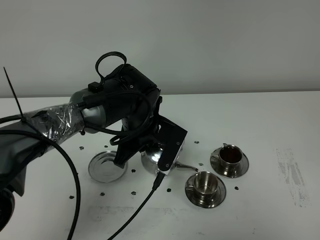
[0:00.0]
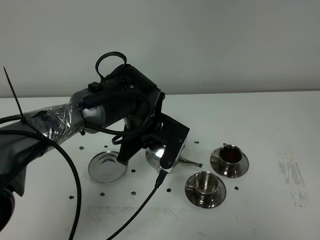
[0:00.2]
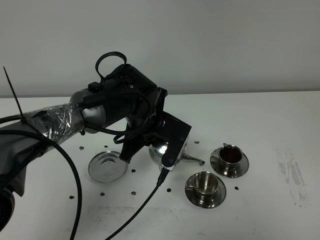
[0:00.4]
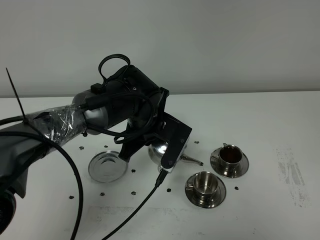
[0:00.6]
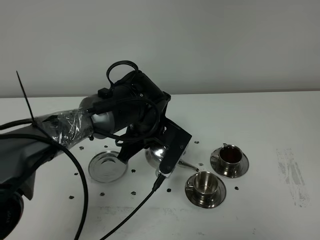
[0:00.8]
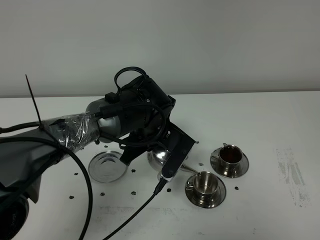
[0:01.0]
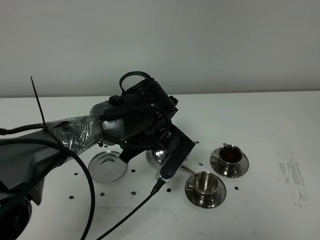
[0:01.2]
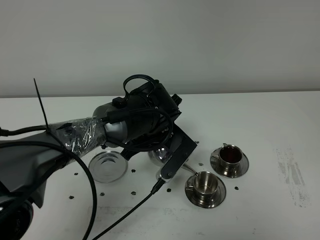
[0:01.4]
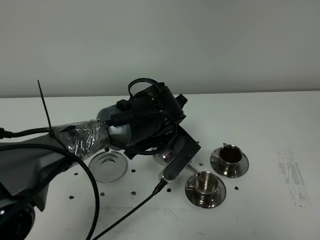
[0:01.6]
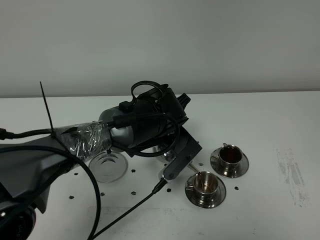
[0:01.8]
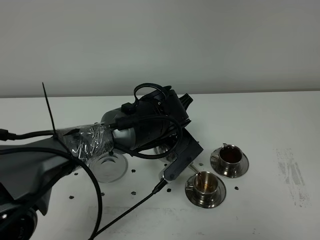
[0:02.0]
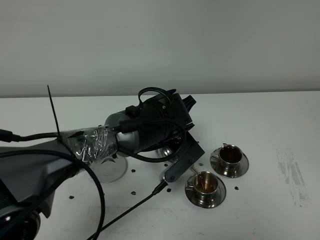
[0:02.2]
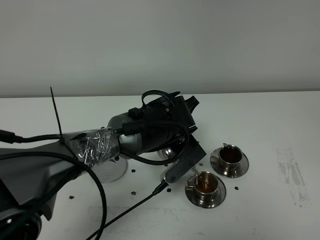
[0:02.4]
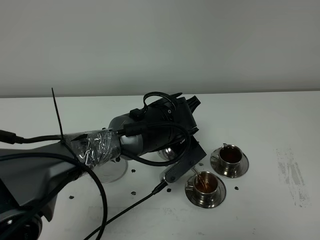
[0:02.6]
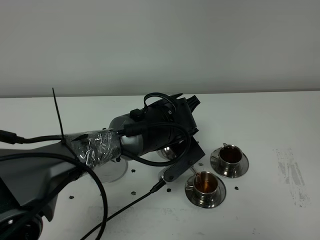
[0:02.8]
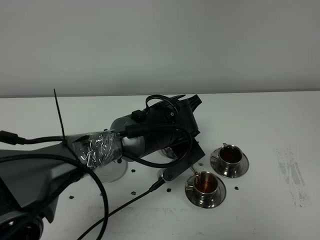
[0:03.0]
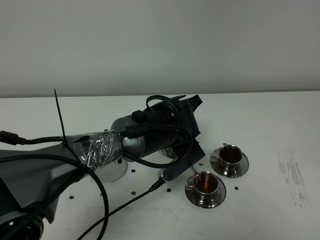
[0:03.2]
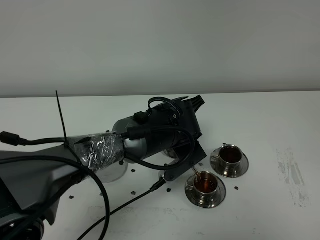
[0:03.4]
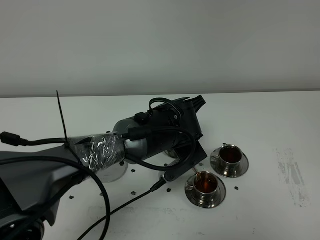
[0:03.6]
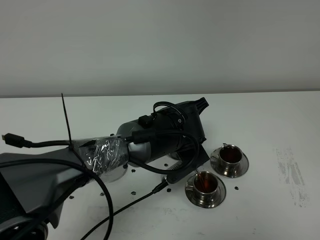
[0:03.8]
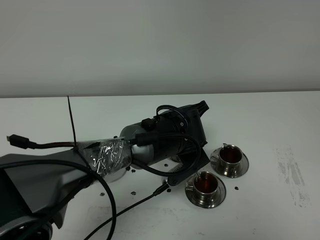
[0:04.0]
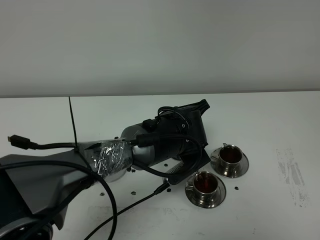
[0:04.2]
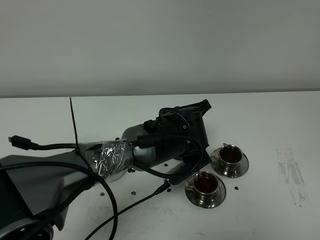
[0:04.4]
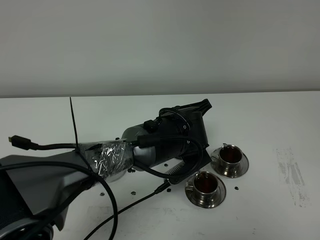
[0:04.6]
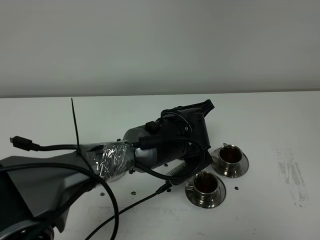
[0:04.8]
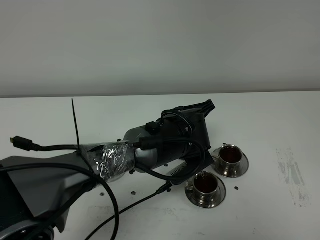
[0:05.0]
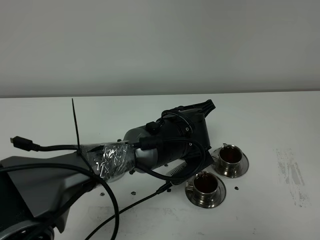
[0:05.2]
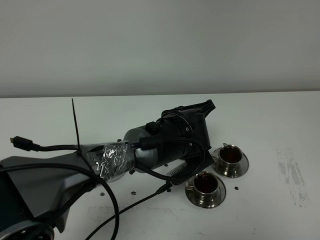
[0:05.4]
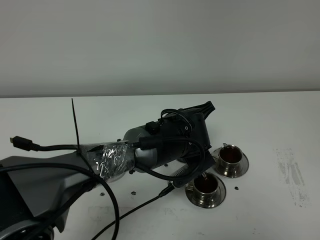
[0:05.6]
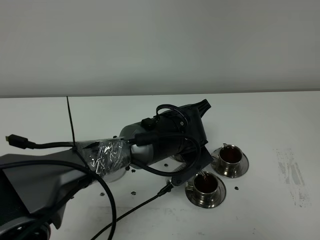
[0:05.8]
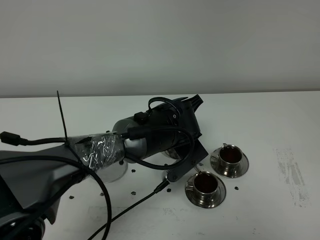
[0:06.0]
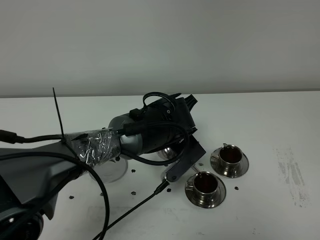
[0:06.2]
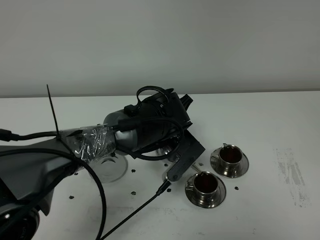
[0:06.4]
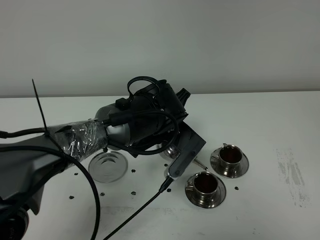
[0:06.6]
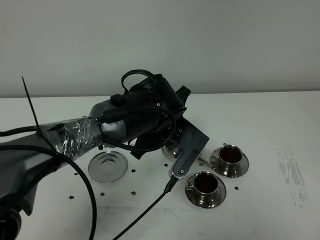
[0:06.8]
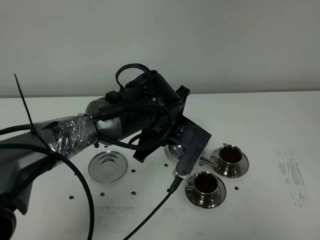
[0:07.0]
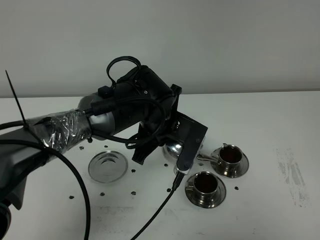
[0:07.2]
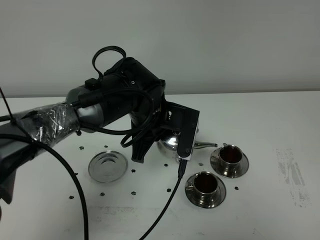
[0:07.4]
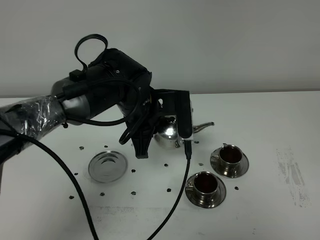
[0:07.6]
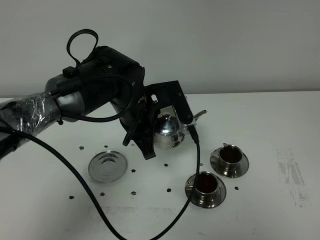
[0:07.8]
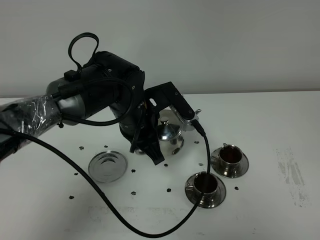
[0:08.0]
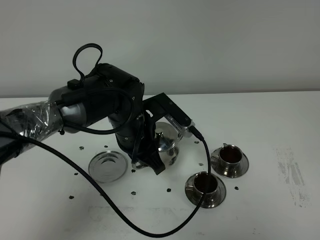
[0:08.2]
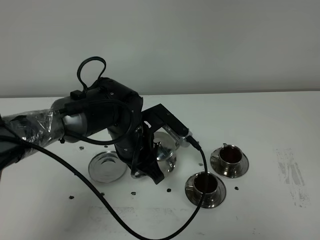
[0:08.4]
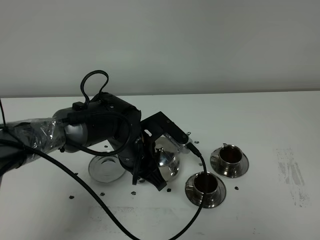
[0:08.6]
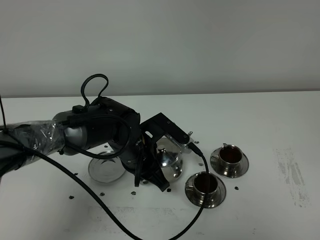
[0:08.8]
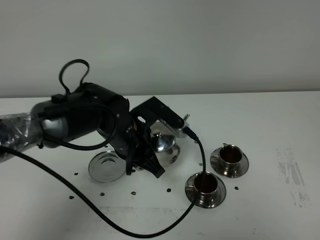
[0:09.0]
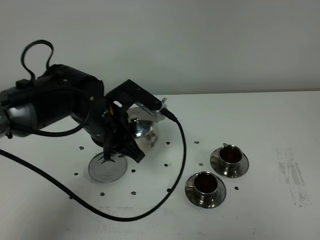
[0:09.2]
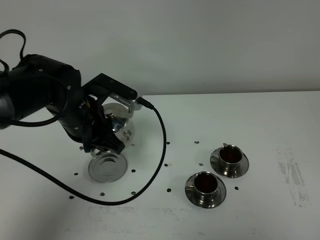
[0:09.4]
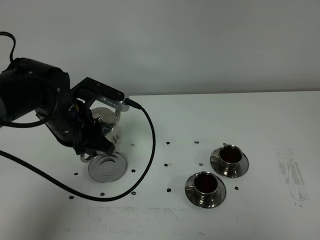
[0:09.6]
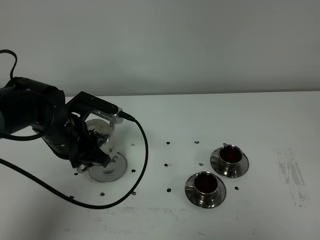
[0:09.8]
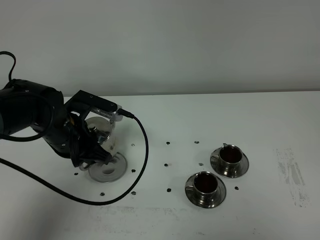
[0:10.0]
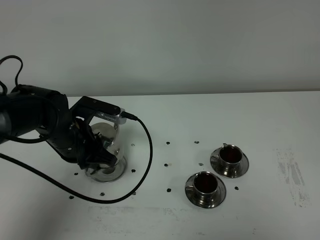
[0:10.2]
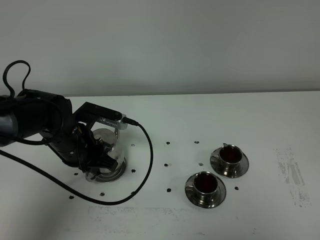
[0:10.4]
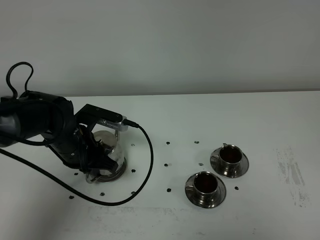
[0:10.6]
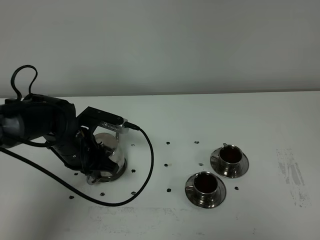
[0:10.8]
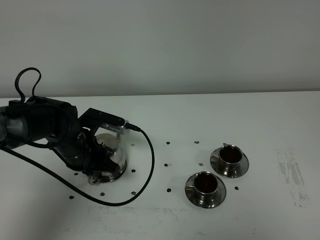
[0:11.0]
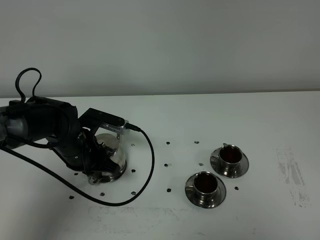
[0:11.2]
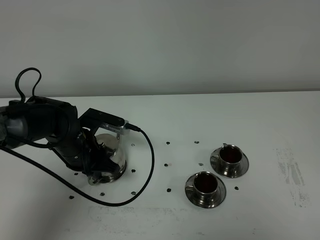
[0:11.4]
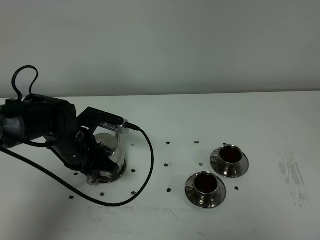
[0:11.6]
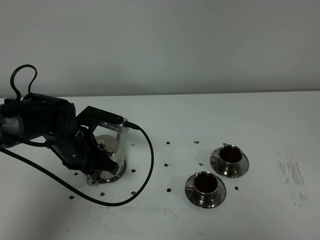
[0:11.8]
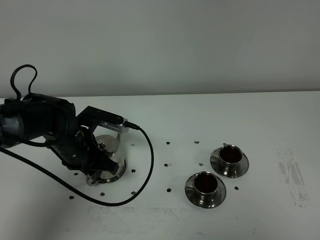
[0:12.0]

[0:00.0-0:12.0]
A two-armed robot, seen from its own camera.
Task of the whole recording: grasp the stainless steel teapot and pour the tea into the two stainless steel teacups one by one, put the stainless steel teapot back in its original place.
Step, 0:00.0 to 0:06.4: Pour tea into the teacup with the left gripper.
0:01.6 to 0:04.4: The grippers make only small movements.
0:04.4 to 0:06.0: The grippers make only small movements.
0:06.0 to 0:07.6: The left gripper heads to the left, covering about 5 cm.
0:09.0 to 0:10.4: The left gripper goes approximately 10 cm to the left.
0:10.4 to 0:12.0: The left gripper opens up.

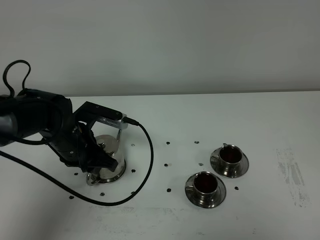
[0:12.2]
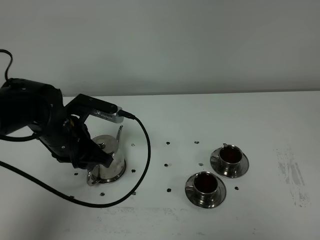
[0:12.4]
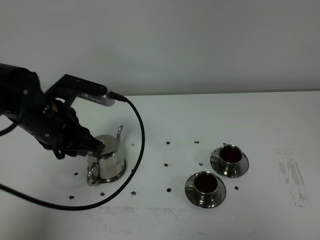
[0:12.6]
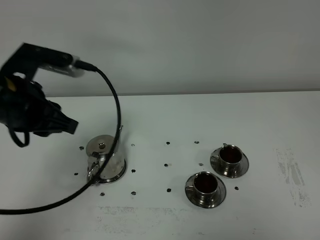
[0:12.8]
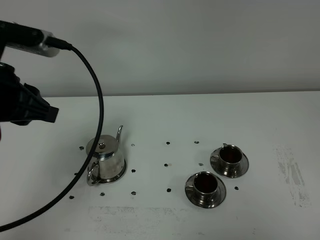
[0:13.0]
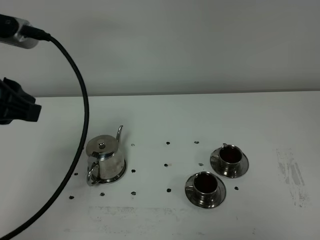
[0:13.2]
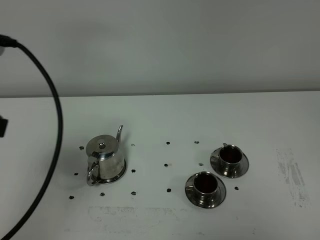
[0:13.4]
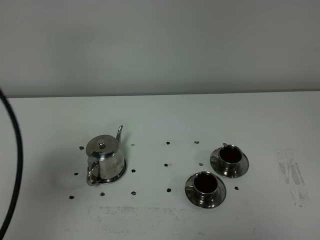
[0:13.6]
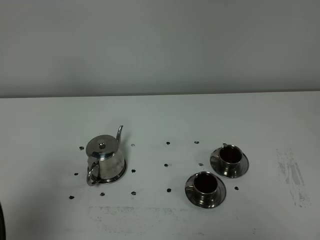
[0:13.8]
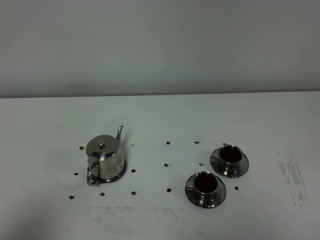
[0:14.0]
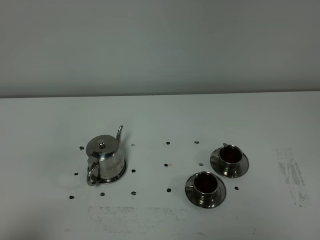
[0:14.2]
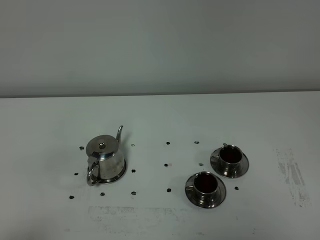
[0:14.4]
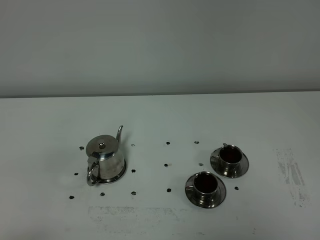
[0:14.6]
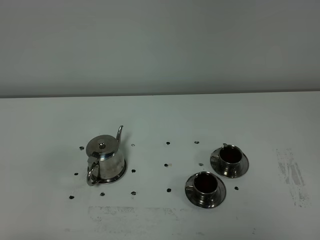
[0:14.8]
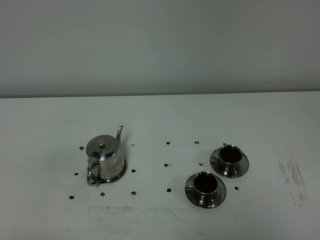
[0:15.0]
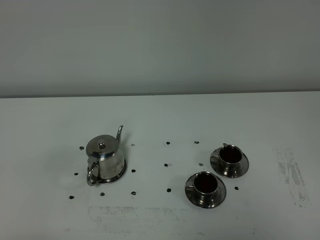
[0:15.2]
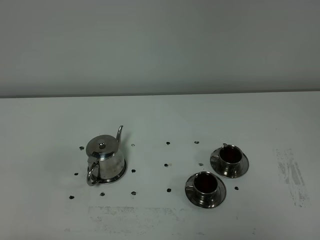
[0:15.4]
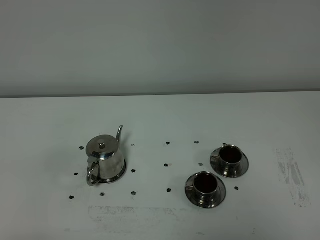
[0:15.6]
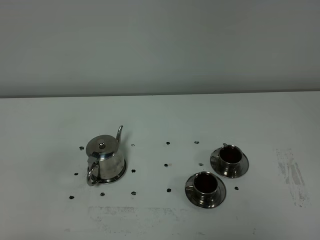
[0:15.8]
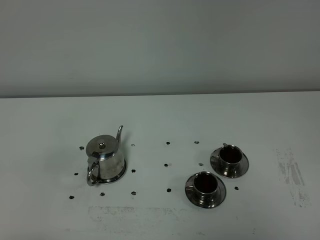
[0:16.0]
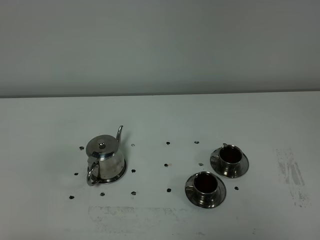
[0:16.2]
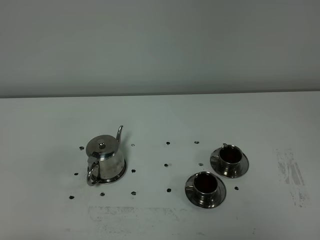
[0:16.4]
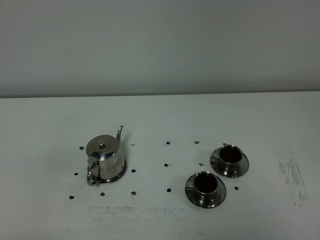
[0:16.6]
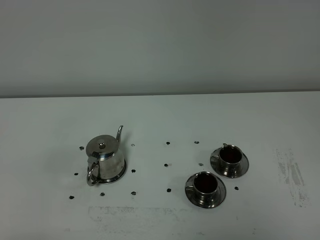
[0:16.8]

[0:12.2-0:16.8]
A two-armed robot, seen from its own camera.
Task of the whole recording: grasp the stainless steel teapot and pour the tea into the two stainless steel teacups one by one, put the stainless steel teapot back in its original place.
0:12.2 to 0:13.8: The left gripper moves backward, upward and to the left, roughly 35 cm.
0:13.8 to 0:15.2: The left gripper travels backward and downward by roughly 15 cm.
0:15.2 to 0:16.8: The two grippers keep their place.

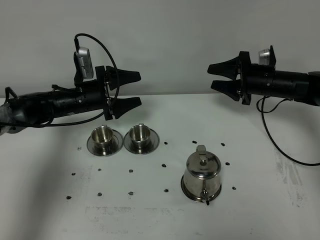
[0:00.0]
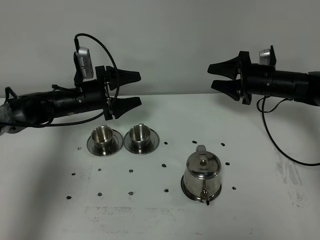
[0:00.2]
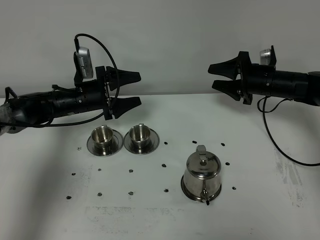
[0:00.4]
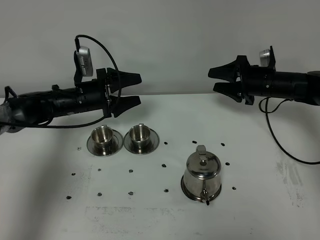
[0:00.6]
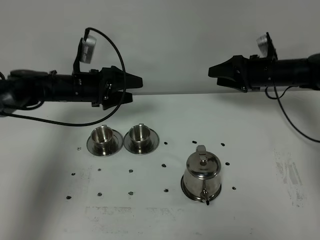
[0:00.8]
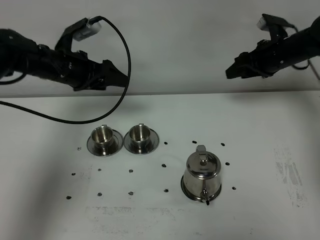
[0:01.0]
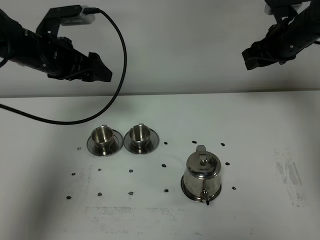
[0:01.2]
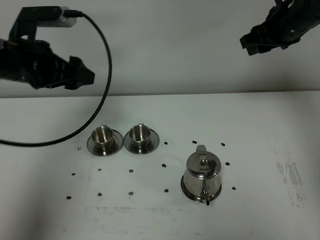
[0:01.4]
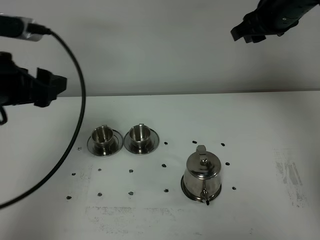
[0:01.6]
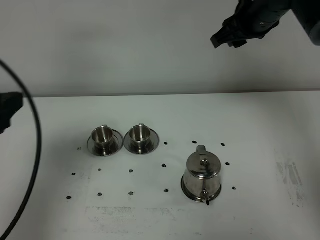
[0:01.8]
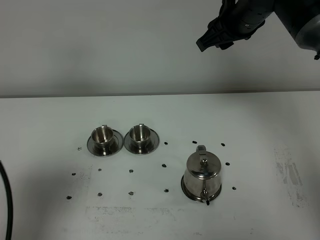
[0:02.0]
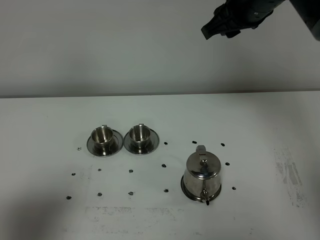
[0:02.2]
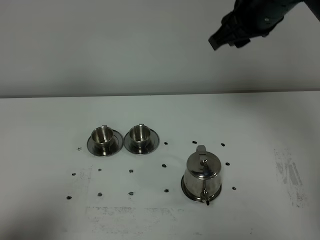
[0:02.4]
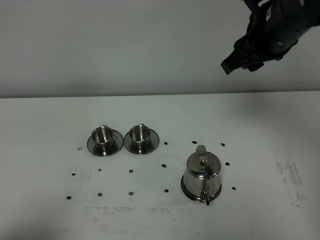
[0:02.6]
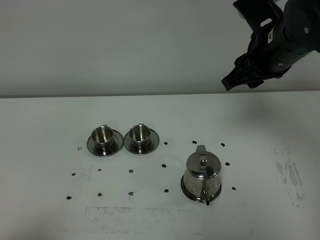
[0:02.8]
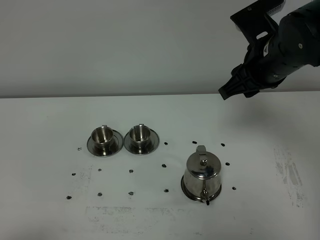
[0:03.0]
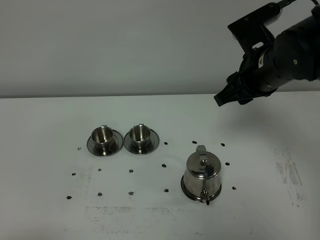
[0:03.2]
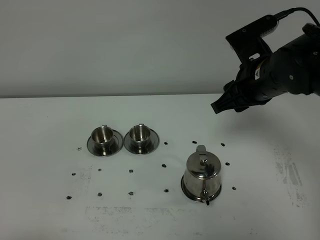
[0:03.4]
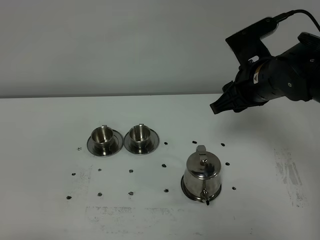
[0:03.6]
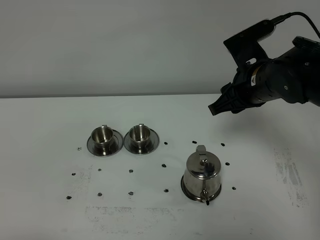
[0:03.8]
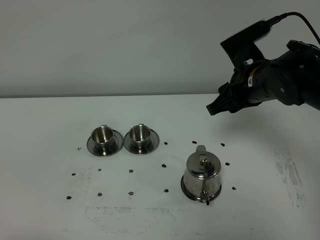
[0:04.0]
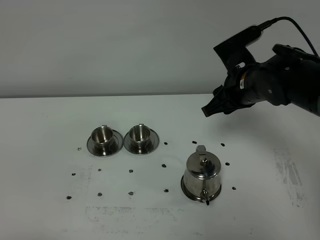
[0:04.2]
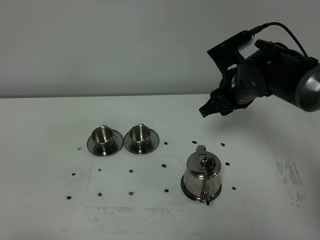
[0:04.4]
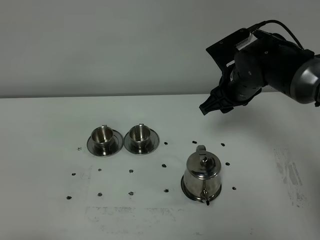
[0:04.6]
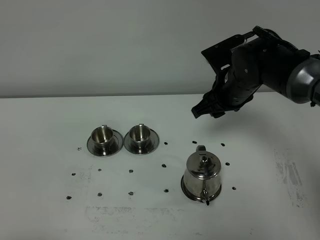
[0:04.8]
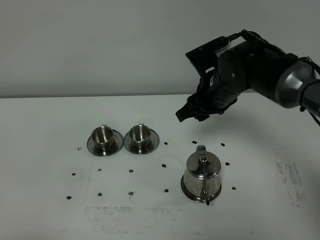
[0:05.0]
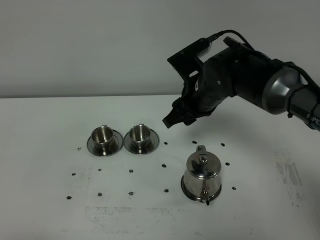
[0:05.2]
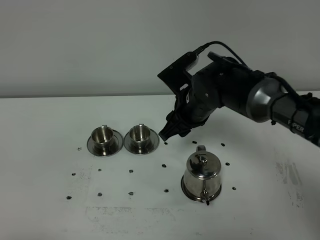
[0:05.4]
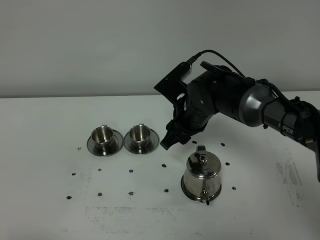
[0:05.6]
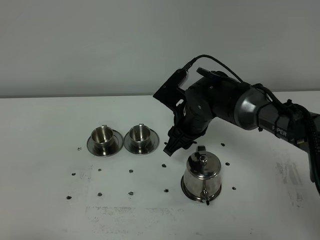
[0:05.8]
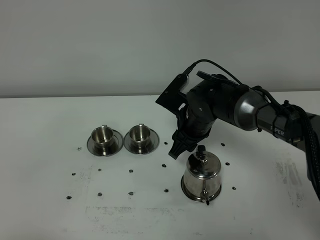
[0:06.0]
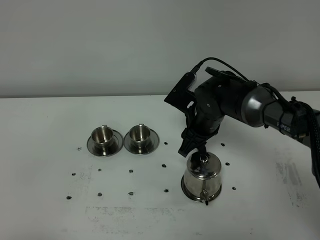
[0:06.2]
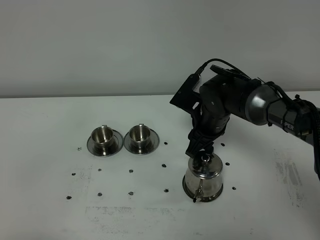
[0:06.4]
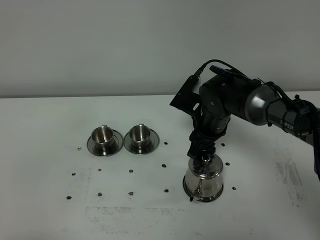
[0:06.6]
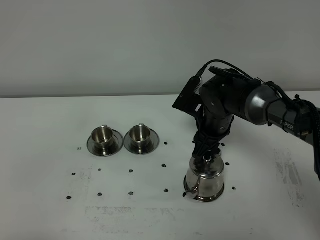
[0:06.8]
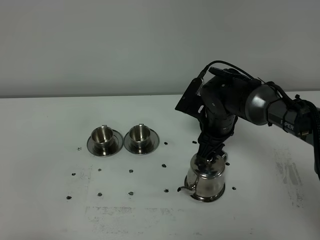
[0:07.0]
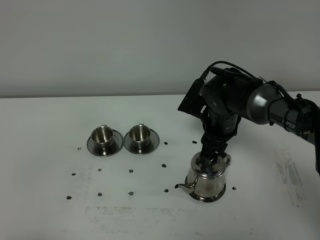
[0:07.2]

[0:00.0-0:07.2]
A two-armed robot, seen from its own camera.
Task of the whole recording: grasp the stainless steel teapot and pour the tea into the two stainless steel teacups one by one, put the stainless steel teapot back in its original place.
0:00.0 to 0:01.4: The right gripper moves upward, some 20 cm. The left gripper is displaced upward and backward by roughly 20 cm.
0:01.4 to 0:02.8: The left gripper goes about 35 cm backward. The right gripper goes roughly 15 cm backward.
0:02.8 to 0:04.4: The right gripper heads downward and forward, covering approximately 10 cm.
0:04.4 to 0:05.8: The right gripper goes roughly 10 cm to the left and downward.
0:05.8 to 0:07.2: The right gripper heads to the right, covering roughly 5 cm.
